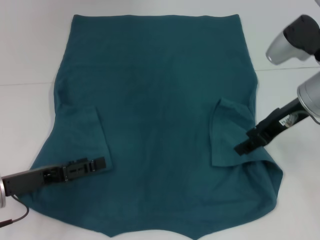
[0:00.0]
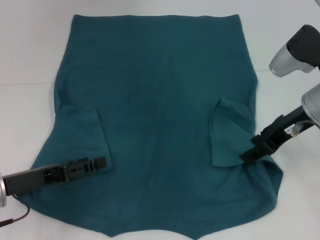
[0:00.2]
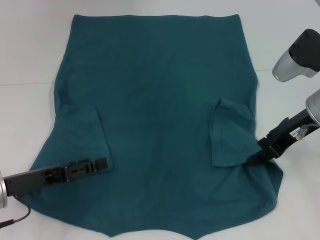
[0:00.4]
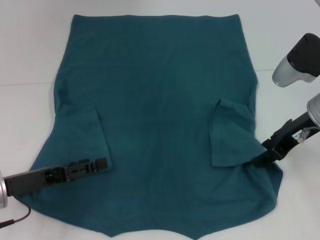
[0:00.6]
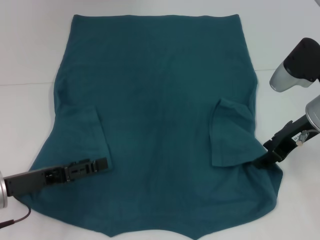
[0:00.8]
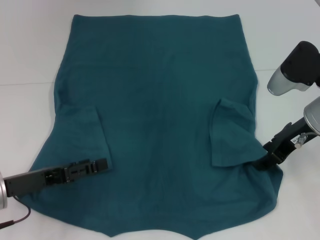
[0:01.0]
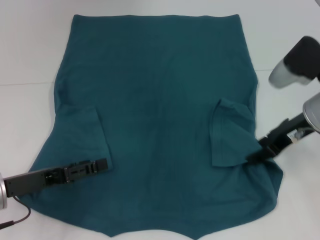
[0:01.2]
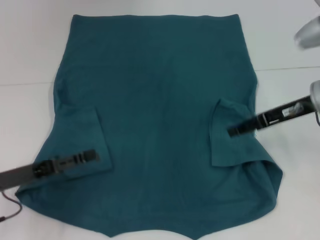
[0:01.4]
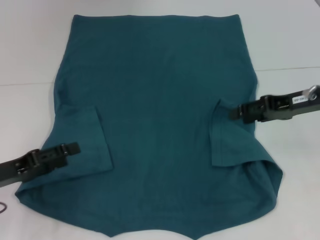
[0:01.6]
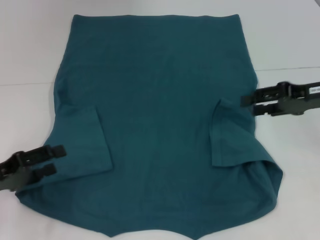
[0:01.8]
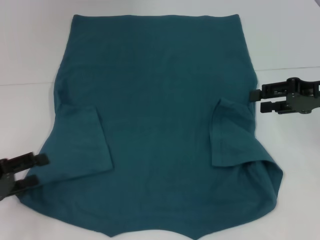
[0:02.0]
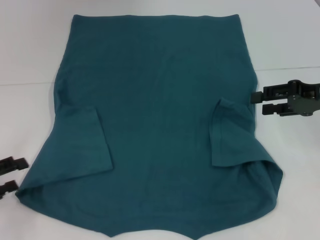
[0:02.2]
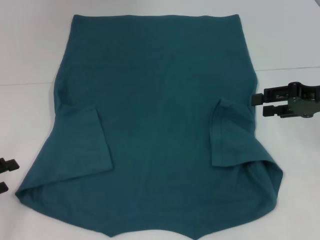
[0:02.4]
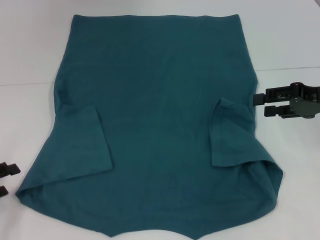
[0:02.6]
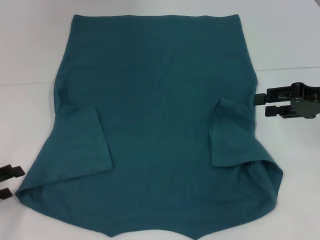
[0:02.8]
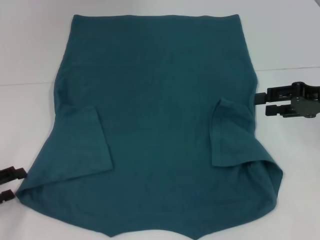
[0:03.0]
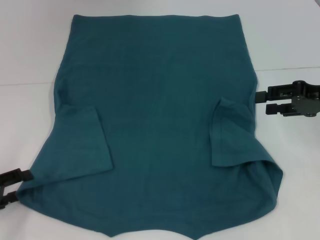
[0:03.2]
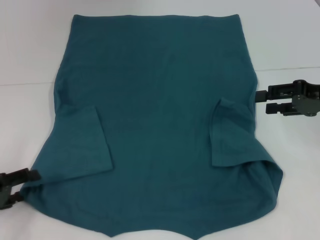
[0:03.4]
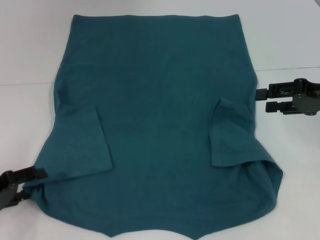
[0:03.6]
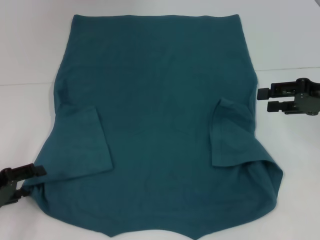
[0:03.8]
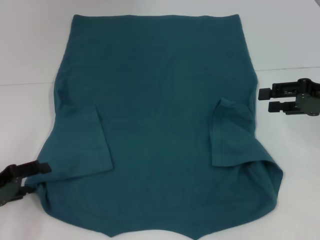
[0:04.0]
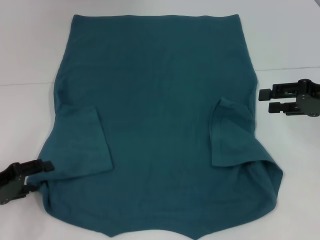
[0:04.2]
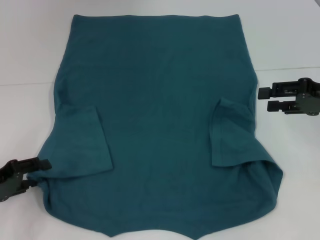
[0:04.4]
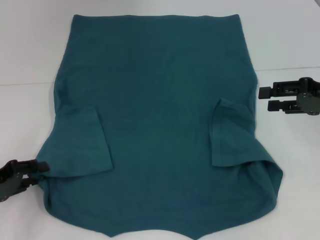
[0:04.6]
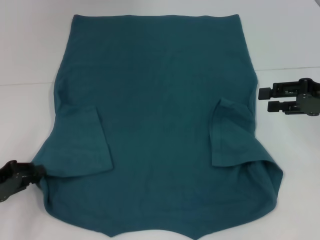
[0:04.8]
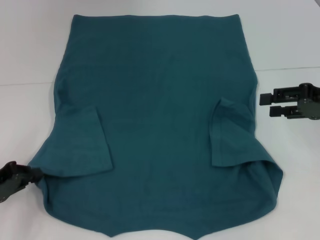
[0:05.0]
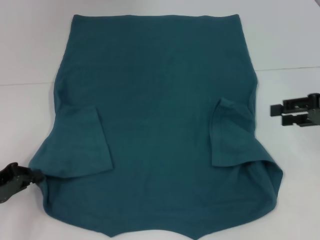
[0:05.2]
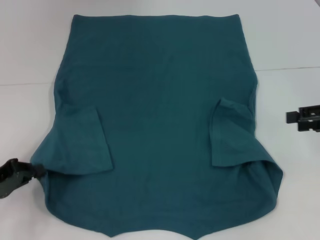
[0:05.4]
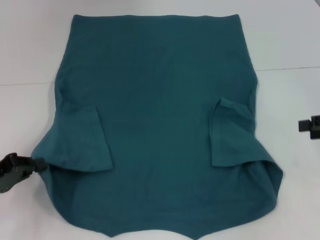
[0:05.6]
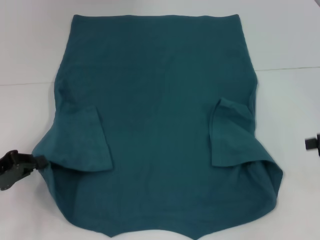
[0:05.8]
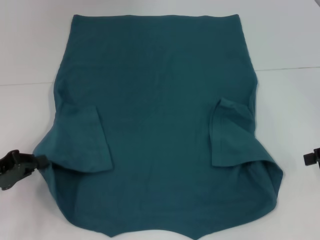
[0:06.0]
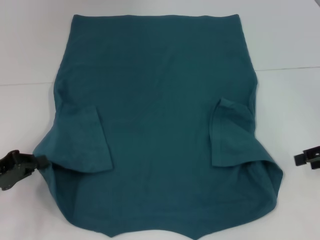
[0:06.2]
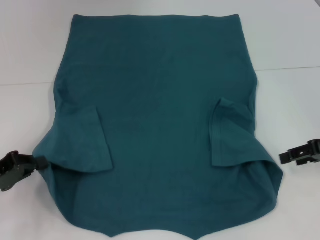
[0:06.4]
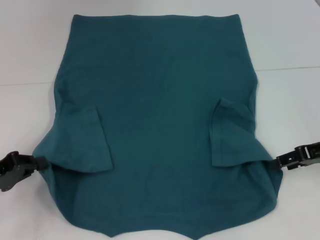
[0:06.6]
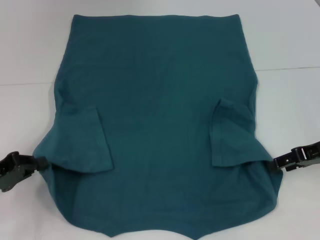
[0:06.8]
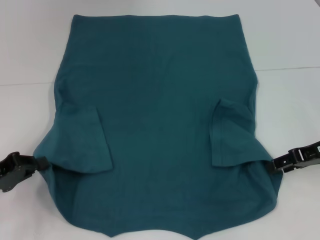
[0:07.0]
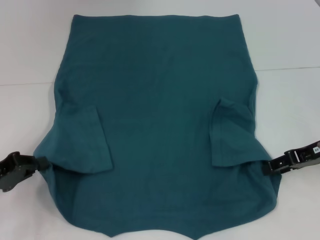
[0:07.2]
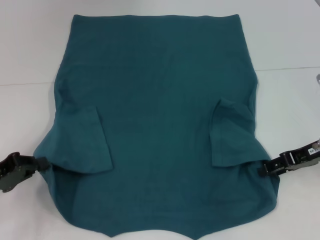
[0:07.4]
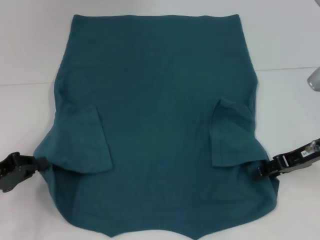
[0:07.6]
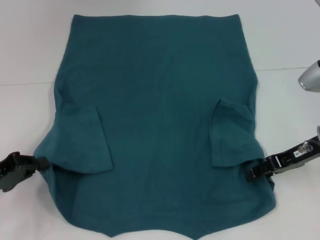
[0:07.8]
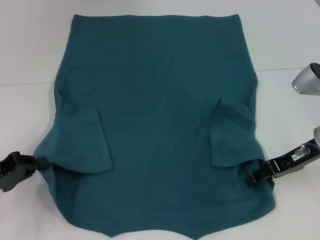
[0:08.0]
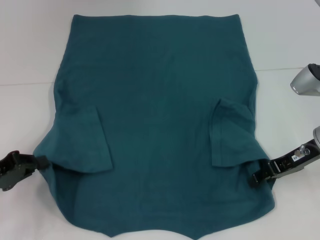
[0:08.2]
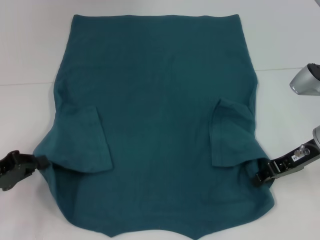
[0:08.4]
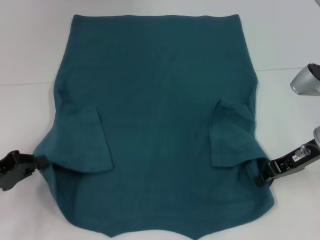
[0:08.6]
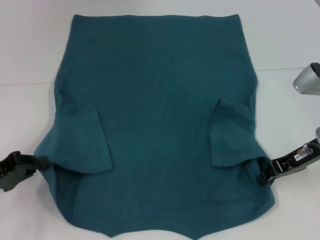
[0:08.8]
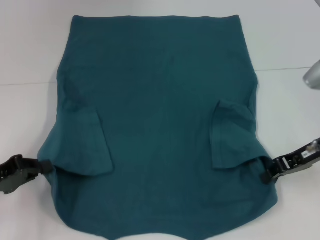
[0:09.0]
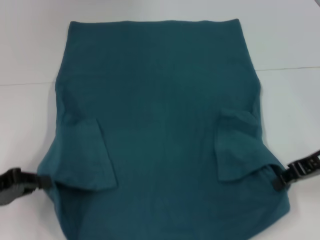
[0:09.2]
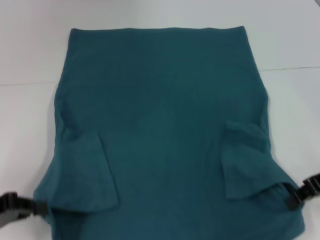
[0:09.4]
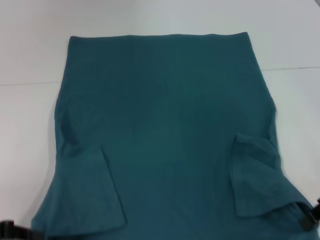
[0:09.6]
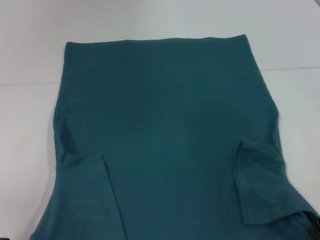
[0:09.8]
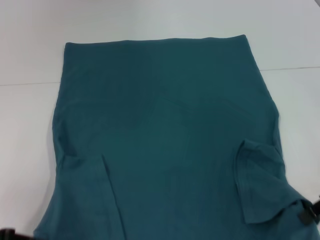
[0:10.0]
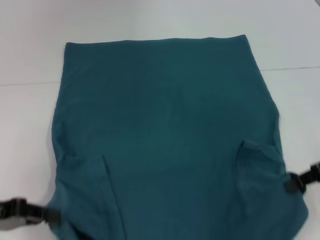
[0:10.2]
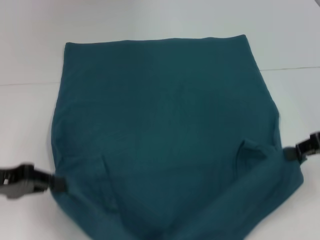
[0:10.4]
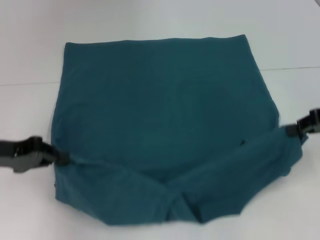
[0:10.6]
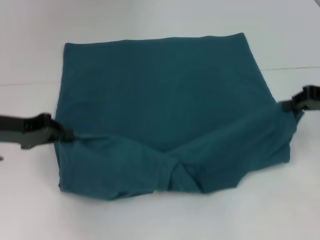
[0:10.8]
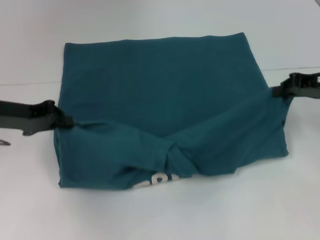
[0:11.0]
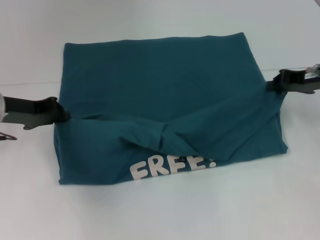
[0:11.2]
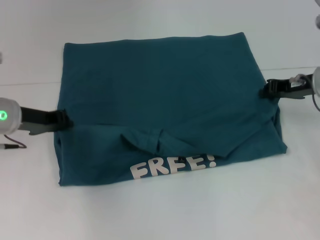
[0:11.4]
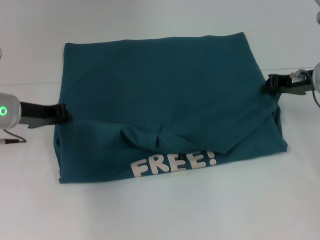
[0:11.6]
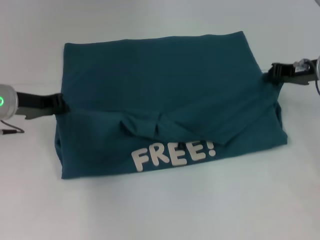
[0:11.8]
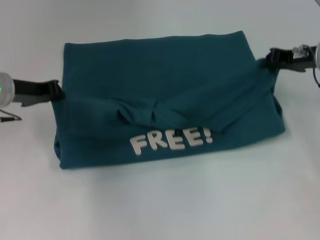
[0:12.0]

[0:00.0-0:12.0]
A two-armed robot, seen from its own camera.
Step, 0.0 to 4.8 s: Grab the bottom left corner with your left hand.
Step, 5.0 to 9.0 s: Grab the bottom right corner with your right hand.
1.6 to 3.0 s: The left gripper heads to the left, covering roughly 5 cm.
3.0 to 4.4 s: The grippers make only small movements.
4.4 to 6.0 s: The left gripper closes up; the right gripper travels to the right by roughly 5 cm.
6.0 to 7.6 s: The right gripper goes some 10 cm to the left.
7.6 to 9.0 s: The right gripper closes its fingers.
9.0 to 10.4 s: The right gripper ends up roughly 5 cm from where it was, while the left gripper moves about 5 cm.
10.4 to 12.0 s: The left gripper heads forward and to the right, covering roughly 15 cm; the right gripper travels forward by roughly 10 cm.

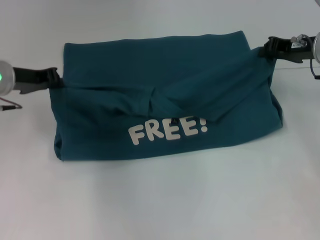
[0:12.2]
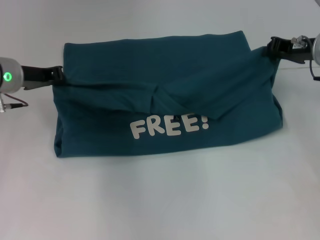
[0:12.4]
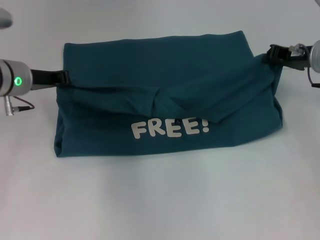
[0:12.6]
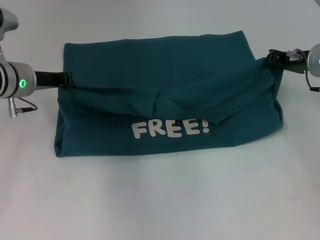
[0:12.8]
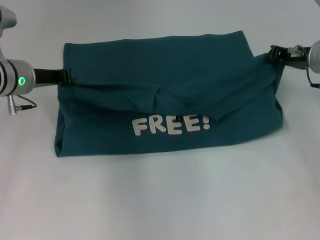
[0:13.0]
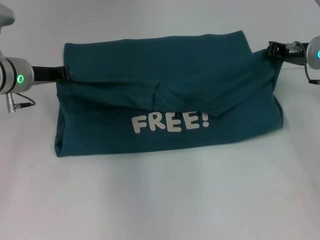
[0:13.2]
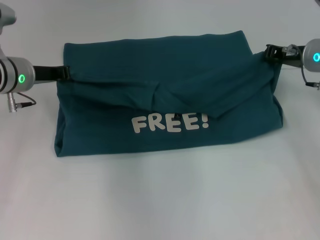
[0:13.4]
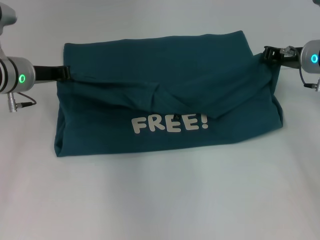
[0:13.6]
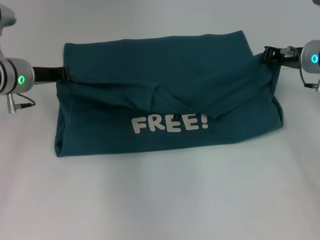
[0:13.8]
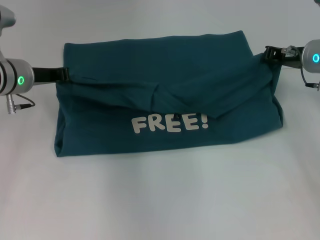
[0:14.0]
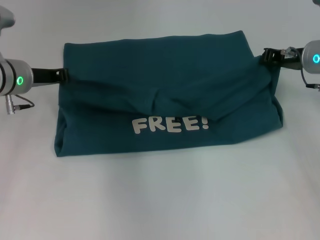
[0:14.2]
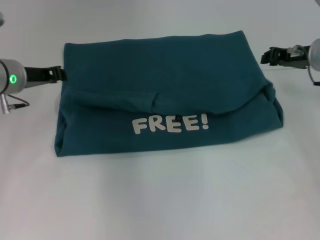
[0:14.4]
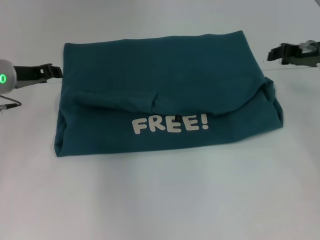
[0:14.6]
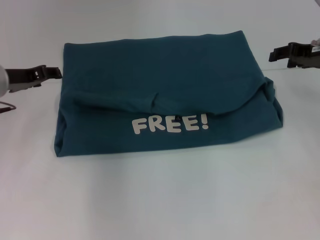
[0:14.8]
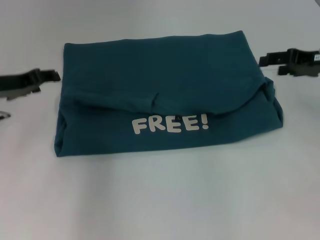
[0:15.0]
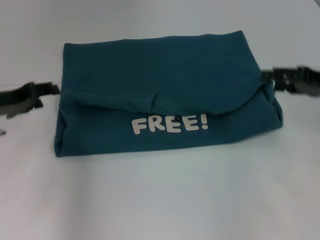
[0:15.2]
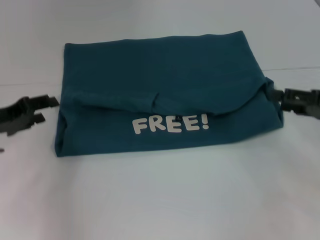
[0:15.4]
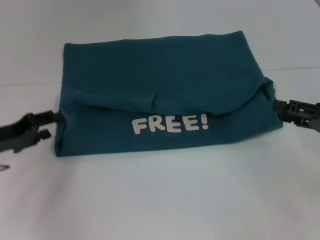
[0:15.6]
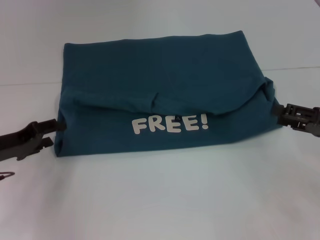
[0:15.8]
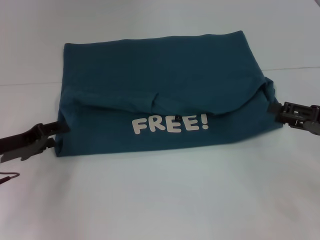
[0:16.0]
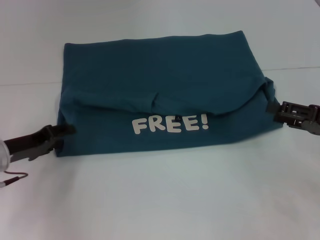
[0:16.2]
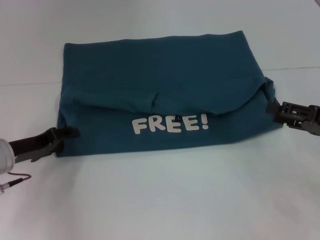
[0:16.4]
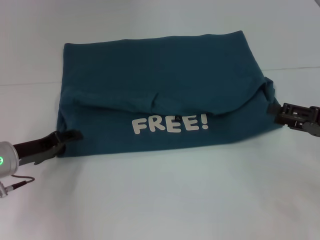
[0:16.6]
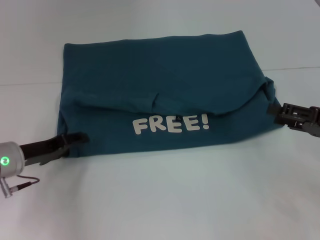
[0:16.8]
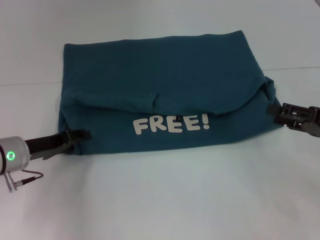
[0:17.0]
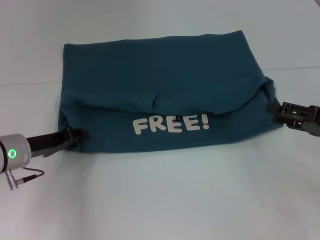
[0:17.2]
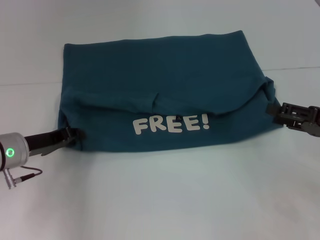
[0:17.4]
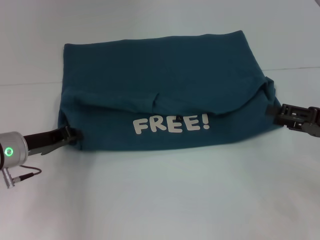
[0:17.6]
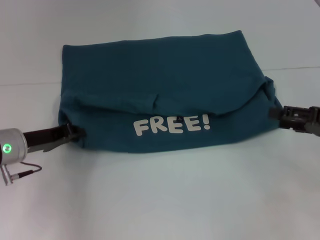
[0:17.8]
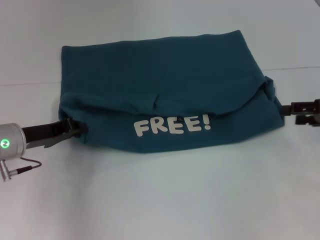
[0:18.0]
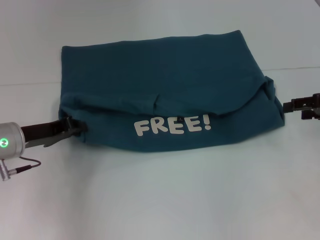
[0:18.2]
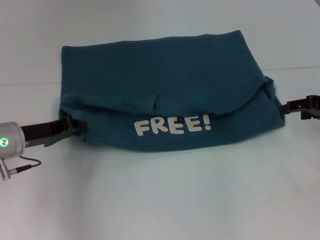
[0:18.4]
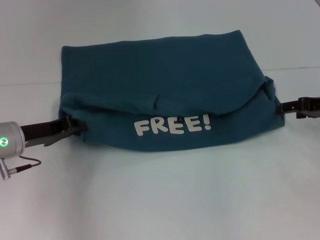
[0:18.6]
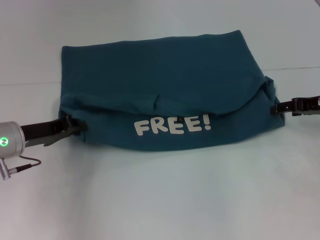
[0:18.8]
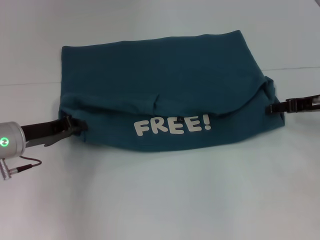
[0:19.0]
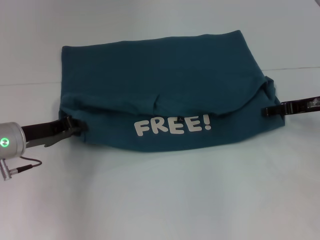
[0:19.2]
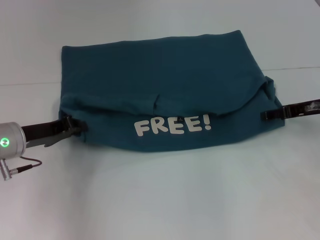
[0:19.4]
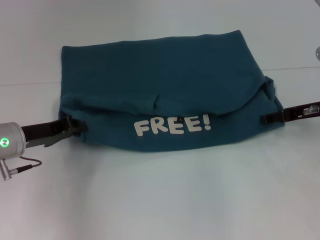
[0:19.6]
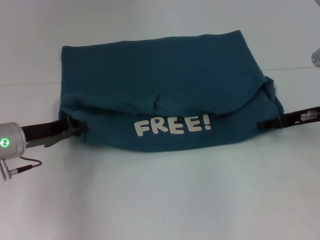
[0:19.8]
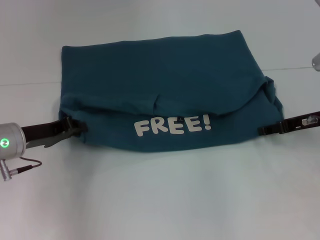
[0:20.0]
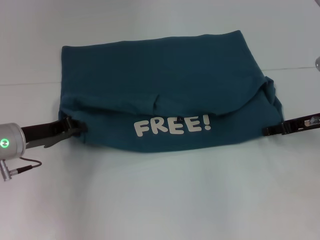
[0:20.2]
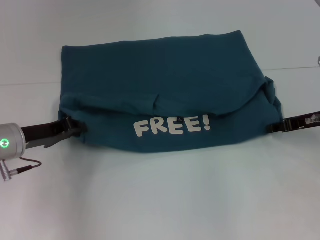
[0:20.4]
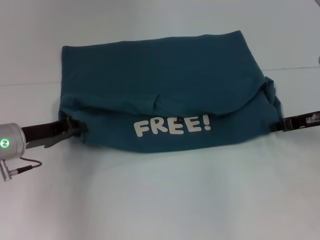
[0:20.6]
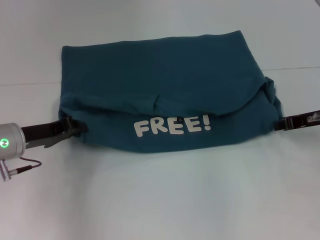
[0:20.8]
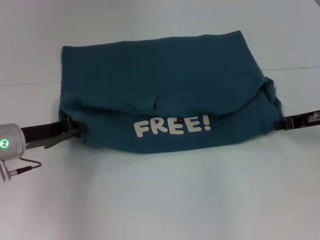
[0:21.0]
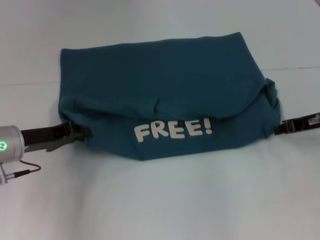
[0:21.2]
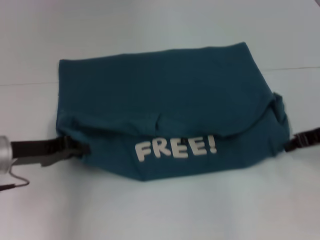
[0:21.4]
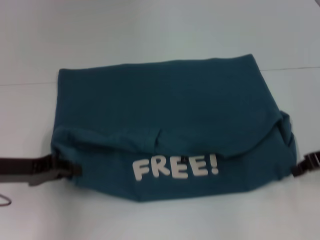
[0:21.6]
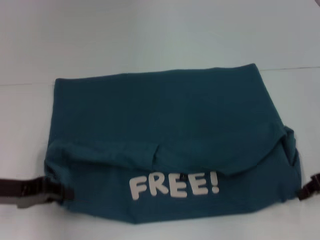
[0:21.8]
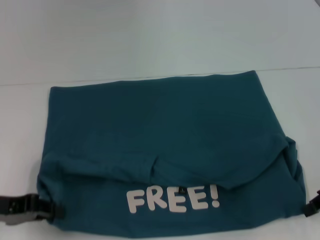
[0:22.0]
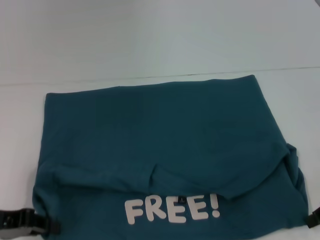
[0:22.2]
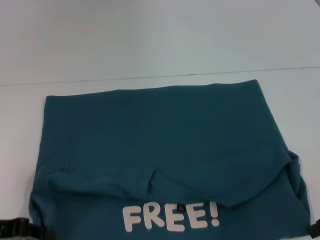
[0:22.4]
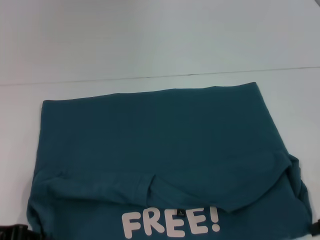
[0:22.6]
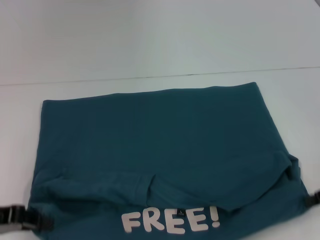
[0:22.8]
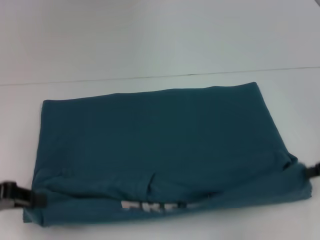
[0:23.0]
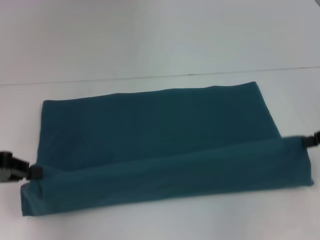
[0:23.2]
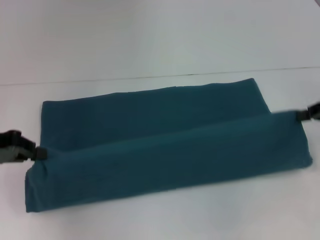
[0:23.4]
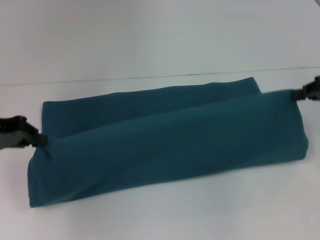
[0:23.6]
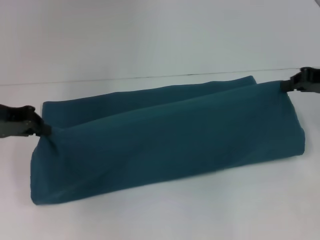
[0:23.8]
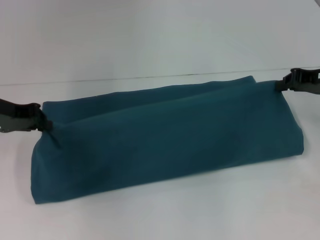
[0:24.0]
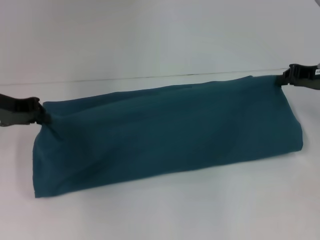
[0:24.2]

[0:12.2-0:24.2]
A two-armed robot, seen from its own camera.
Step, 12.2 to 14.2 s: Fold the clothes to the left.
Step, 14.6 to 22.6 s: Pull the clothes with your left hand.
Step, 14.6 to 22.6 s: Pull the clothes with your right hand.
12.2 to 13.8 s: The grippers move only a little.
13.8 to 15.2 s: The right gripper moves backward and to the right, roughly 10 cm, and opens its fingers. Meanwhile the left gripper travels backward and to the left by some 10 cm, and opens.
15.2 to 16.6 s: The left gripper goes about 10 cm downward. The right gripper shifts approximately 5 cm backward.
16.6 to 18.2 s: The left gripper closes; the right gripper is displaced forward by approximately 5 cm.
18.2 to 19.8 s: The right gripper travels to the left by about 5 cm.
19.8 to 21.2 s: The right gripper closes up.
21.2 to 22.6 s: The left gripper is displaced backward and to the left by roughly 10 cm. Meanwhile the right gripper travels backward by roughly 10 cm.
22.6 to 24.2 s: The left gripper moves forward and upward, about 15 cm; the right gripper moves forward, about 15 cm.
